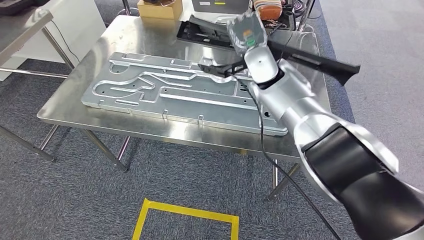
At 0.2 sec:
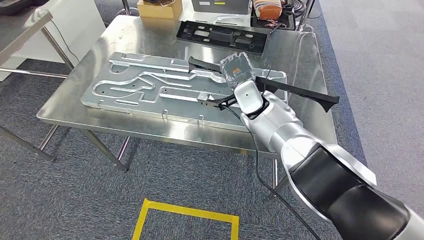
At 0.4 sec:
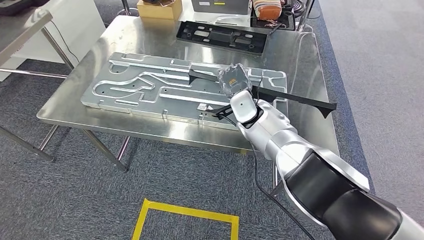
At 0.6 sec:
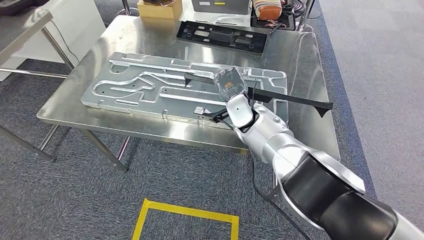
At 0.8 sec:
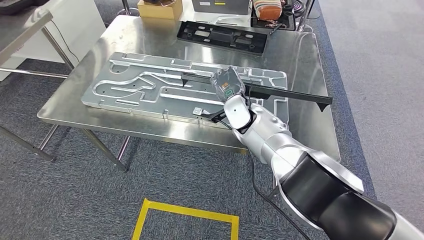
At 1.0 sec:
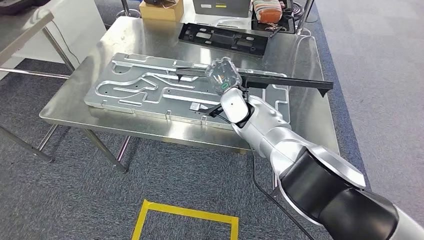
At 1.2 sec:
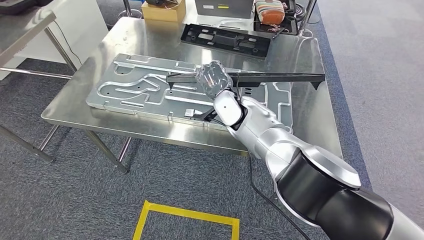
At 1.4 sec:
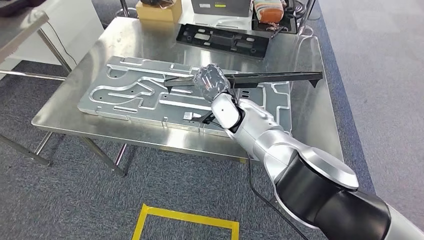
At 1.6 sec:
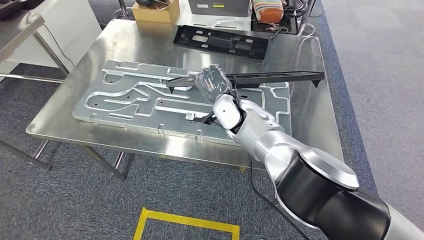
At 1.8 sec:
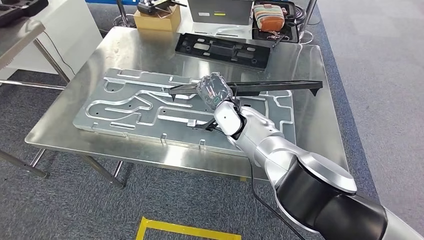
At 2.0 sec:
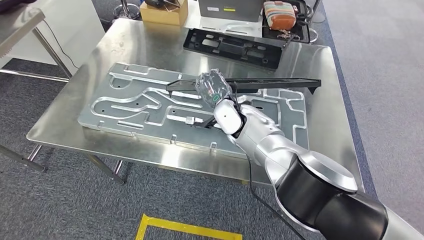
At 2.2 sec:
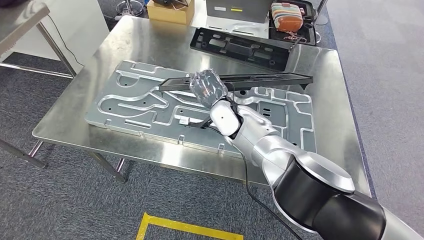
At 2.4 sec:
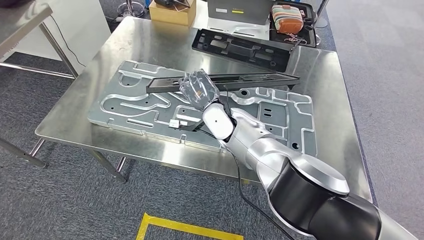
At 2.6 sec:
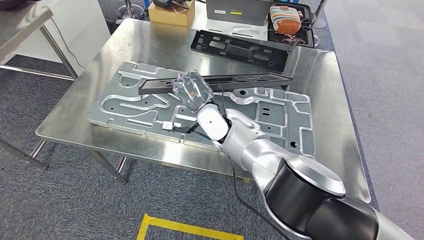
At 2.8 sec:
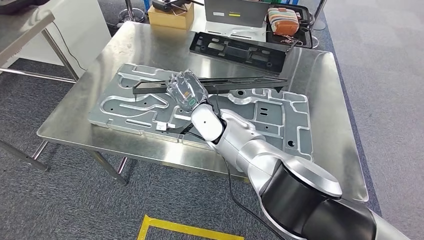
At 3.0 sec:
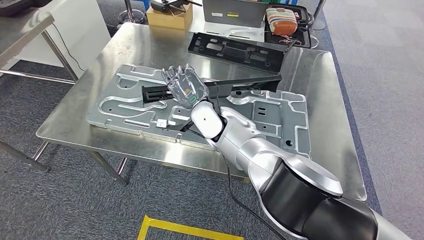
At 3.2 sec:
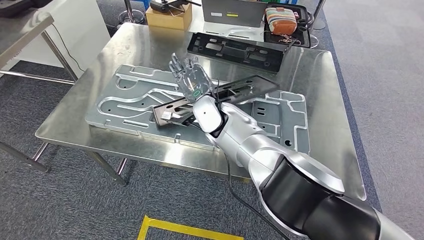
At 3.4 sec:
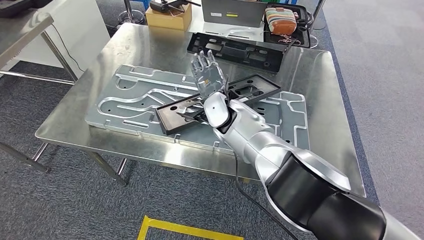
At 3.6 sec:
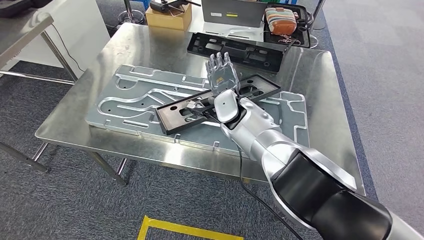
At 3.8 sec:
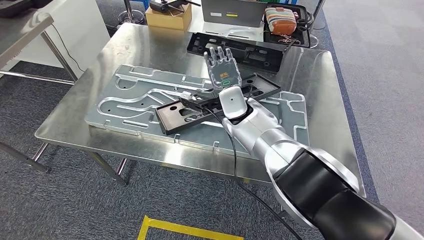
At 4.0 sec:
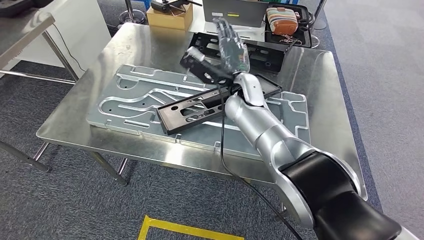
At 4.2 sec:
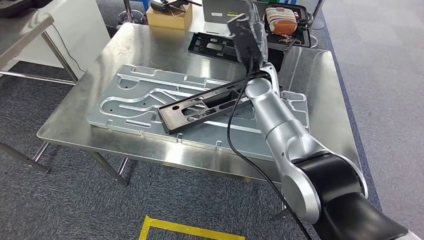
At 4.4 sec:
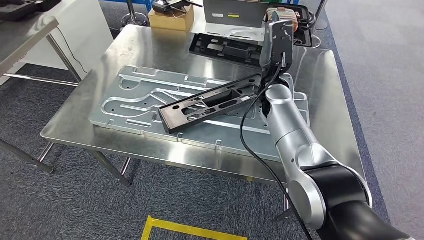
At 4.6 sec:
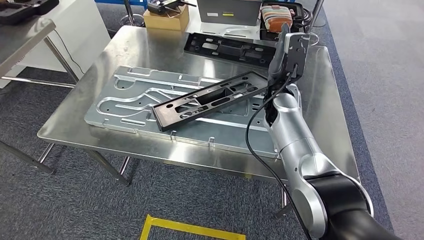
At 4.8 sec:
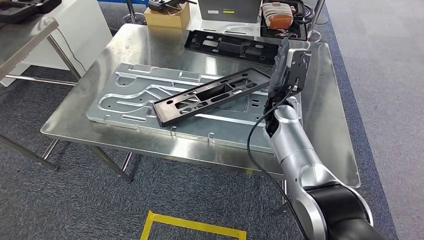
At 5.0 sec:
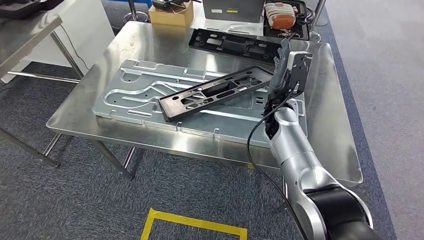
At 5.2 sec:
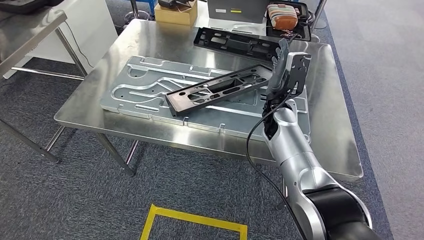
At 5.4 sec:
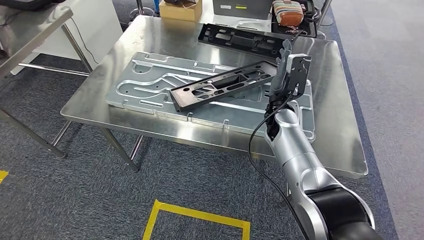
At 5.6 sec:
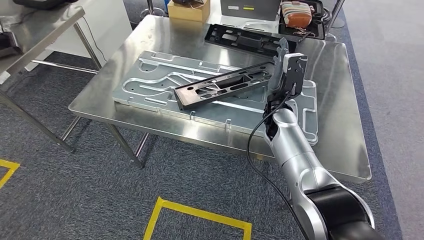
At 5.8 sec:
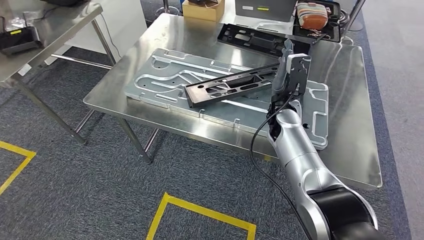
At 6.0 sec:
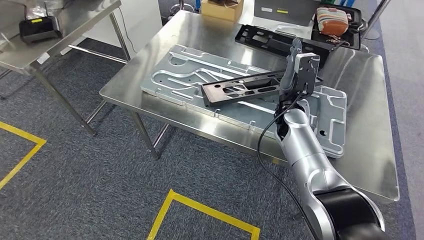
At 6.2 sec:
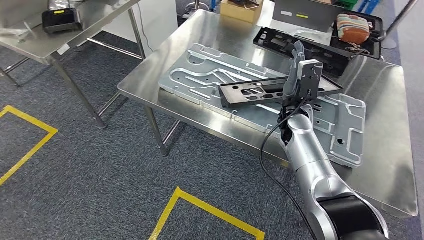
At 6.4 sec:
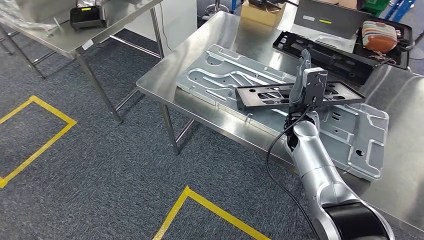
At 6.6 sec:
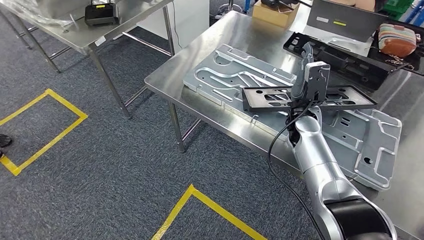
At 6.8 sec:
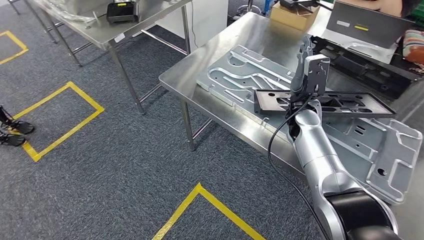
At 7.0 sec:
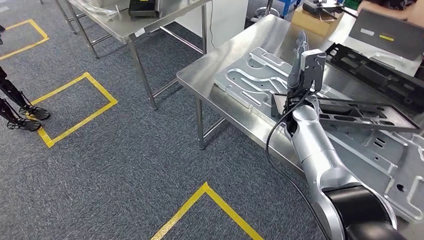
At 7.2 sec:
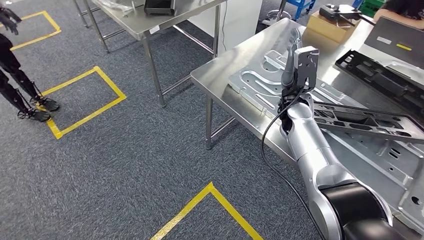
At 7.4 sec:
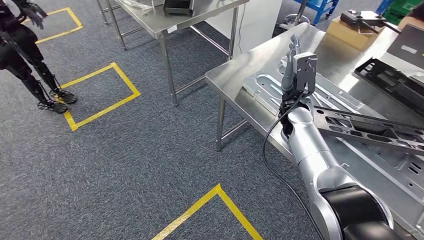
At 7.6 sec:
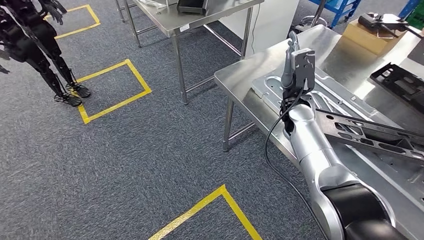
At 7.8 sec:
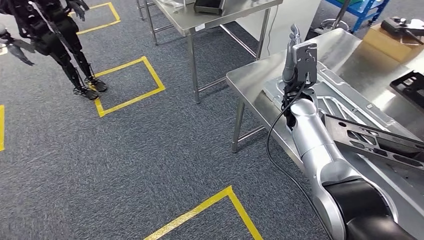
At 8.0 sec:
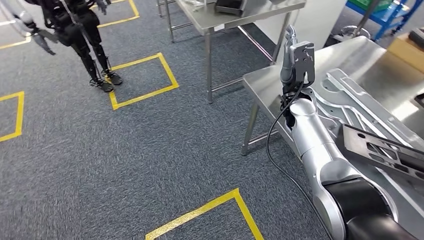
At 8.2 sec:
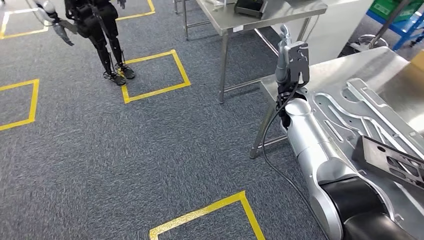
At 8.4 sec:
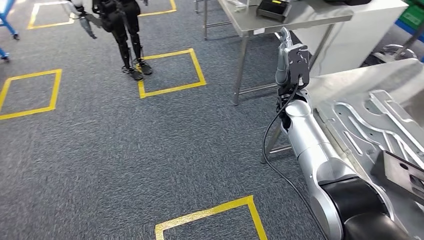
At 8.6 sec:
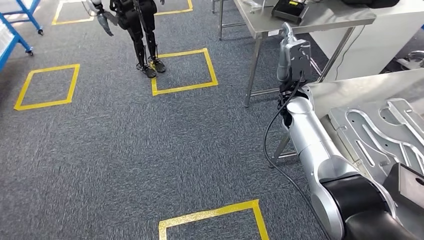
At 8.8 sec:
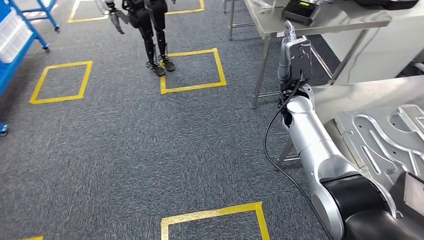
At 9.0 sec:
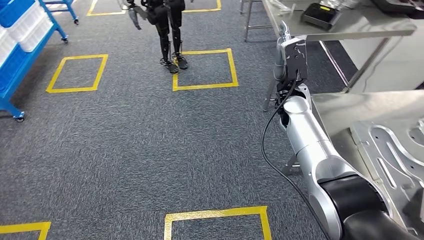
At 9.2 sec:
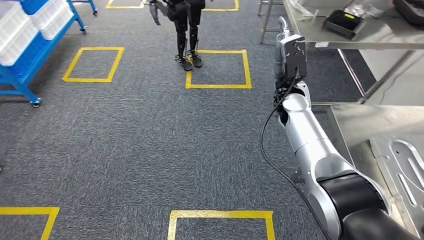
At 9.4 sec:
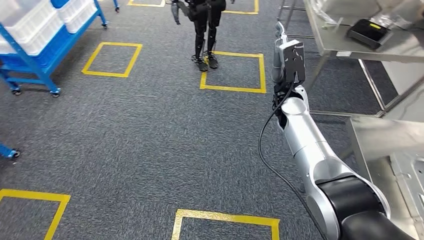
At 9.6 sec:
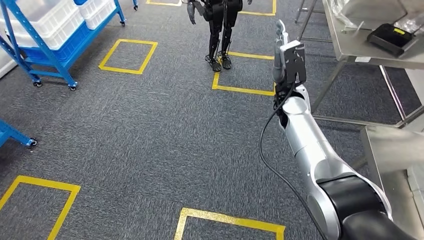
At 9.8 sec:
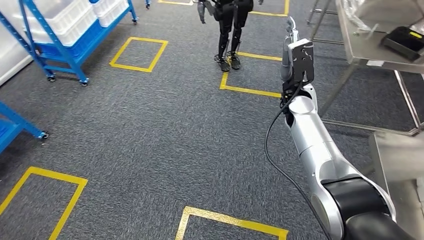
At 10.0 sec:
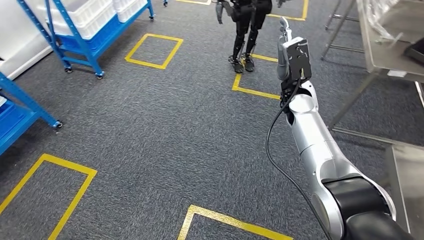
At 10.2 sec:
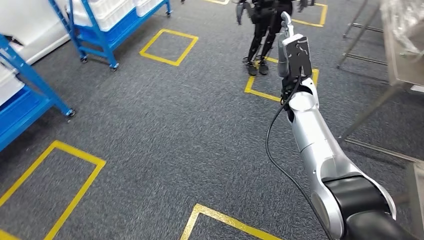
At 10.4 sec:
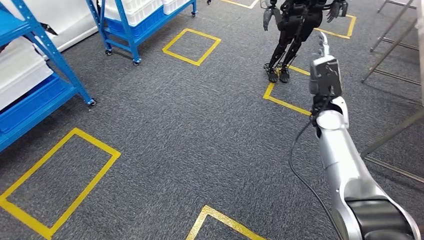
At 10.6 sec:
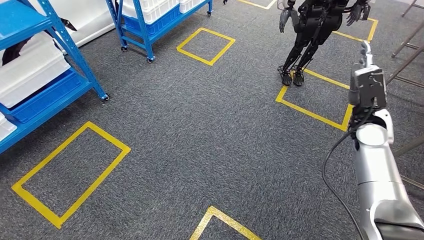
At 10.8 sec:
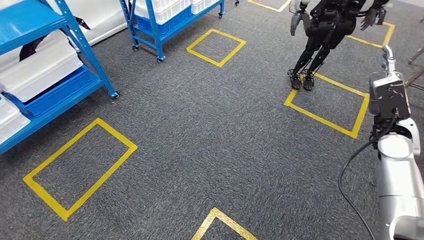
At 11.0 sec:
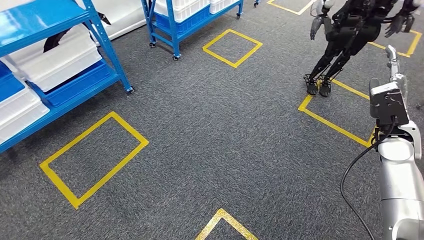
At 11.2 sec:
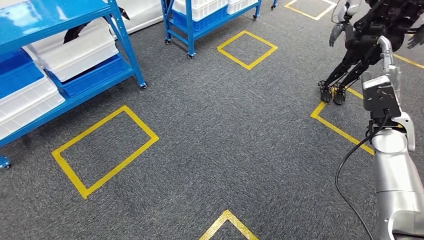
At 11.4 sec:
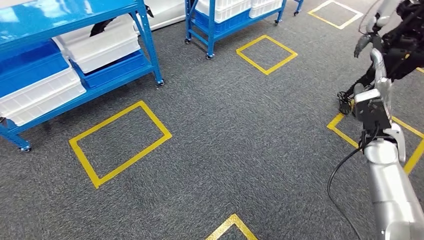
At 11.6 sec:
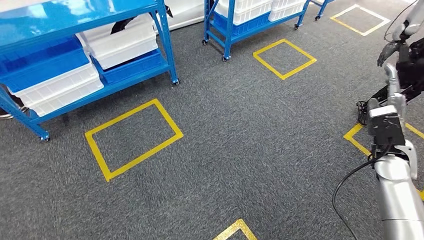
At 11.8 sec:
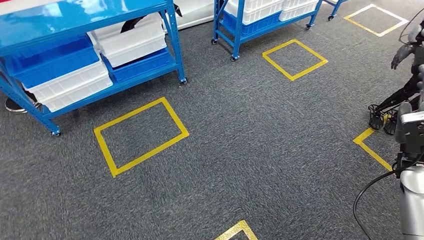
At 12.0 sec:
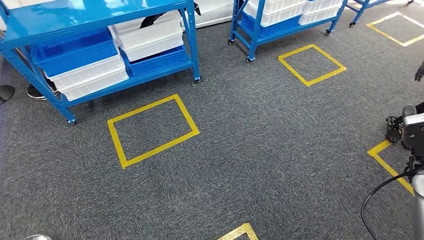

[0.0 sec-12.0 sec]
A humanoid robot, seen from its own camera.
Step, 0.6 sec to 5.8 sec: Insert the large material into the corresponding slot on the workbench.

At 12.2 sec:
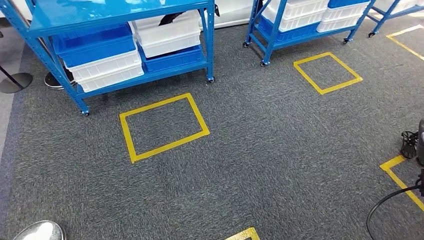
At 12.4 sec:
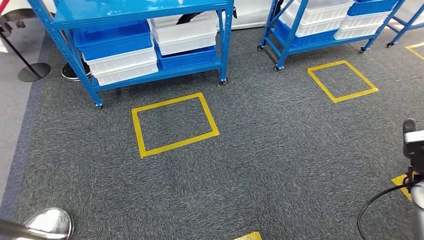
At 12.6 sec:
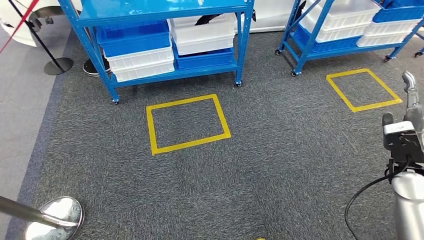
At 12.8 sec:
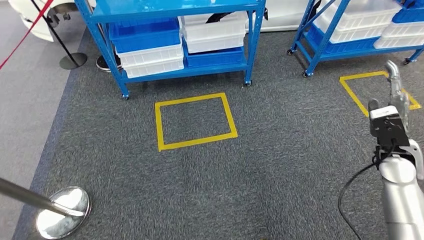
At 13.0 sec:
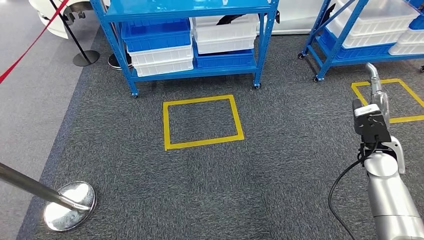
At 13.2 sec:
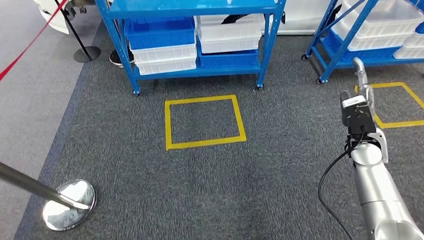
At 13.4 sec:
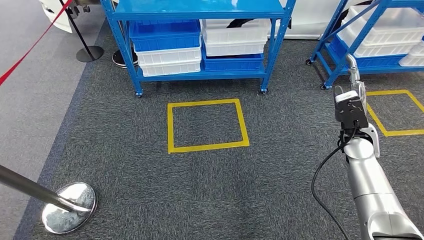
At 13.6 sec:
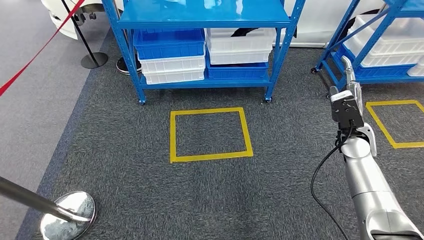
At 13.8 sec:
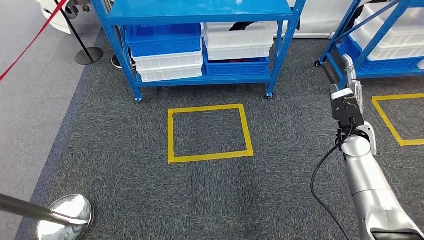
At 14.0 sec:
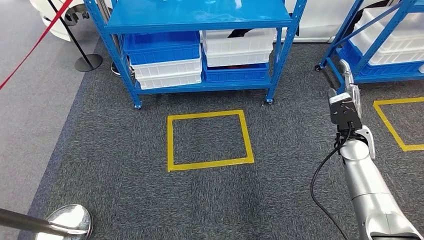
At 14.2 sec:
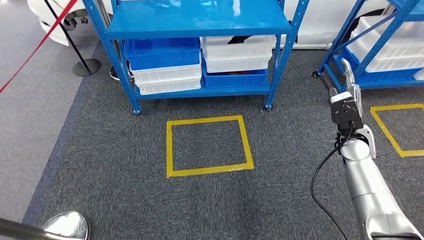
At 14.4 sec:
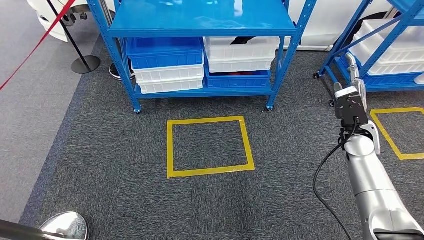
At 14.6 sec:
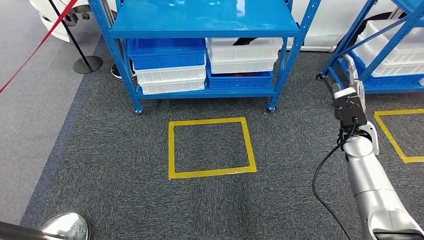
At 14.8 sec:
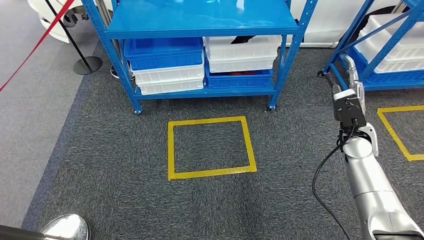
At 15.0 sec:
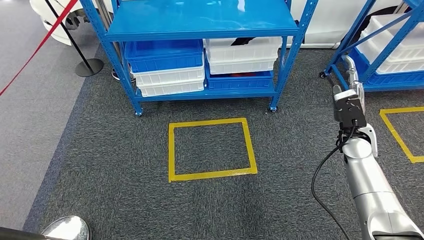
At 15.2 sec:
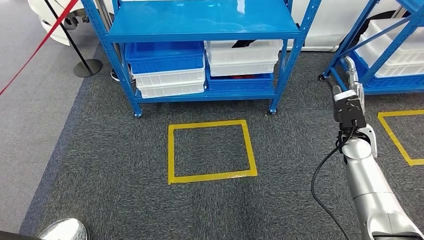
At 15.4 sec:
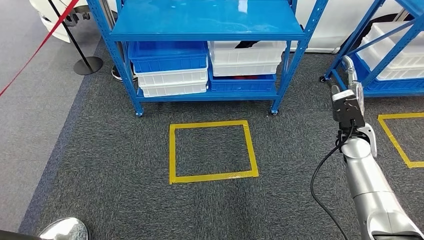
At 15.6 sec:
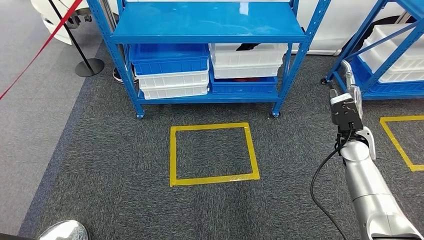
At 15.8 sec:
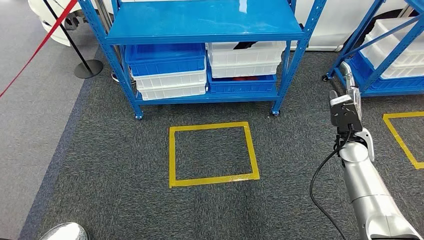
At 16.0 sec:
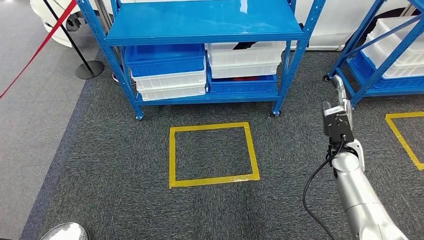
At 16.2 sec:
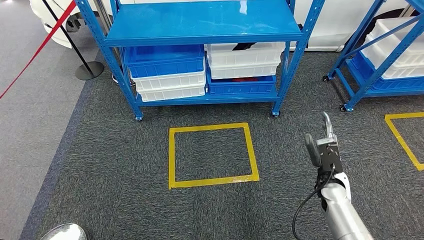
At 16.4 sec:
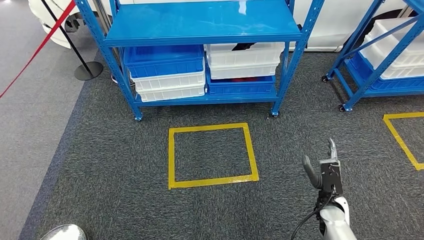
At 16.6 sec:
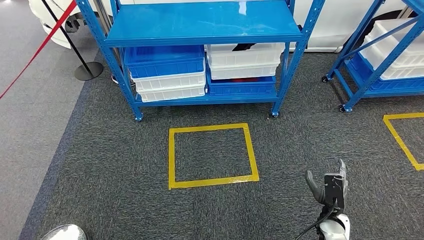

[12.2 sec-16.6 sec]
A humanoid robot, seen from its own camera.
Step, 12.2 sec to 16.6 sec: Return to the initial position at the shelf.
